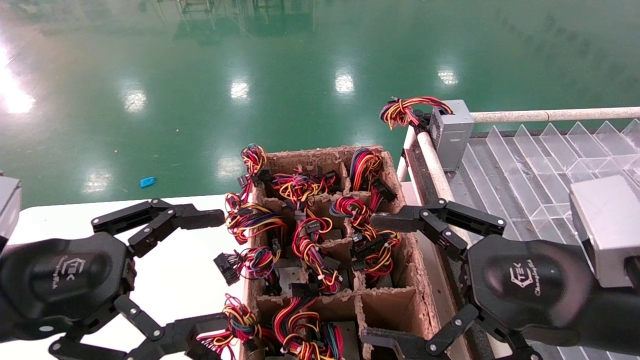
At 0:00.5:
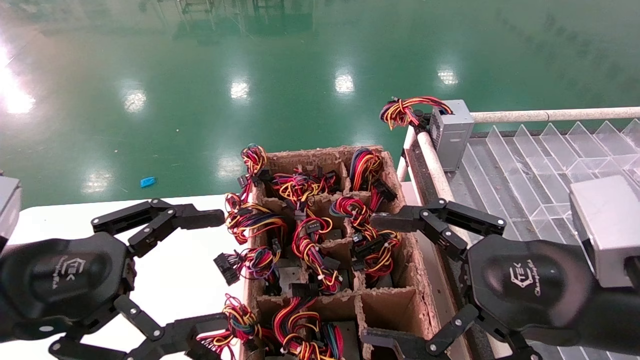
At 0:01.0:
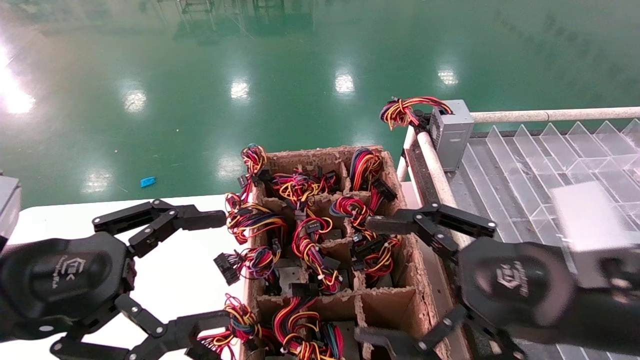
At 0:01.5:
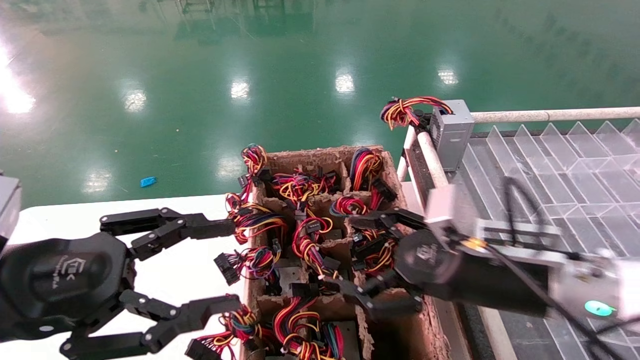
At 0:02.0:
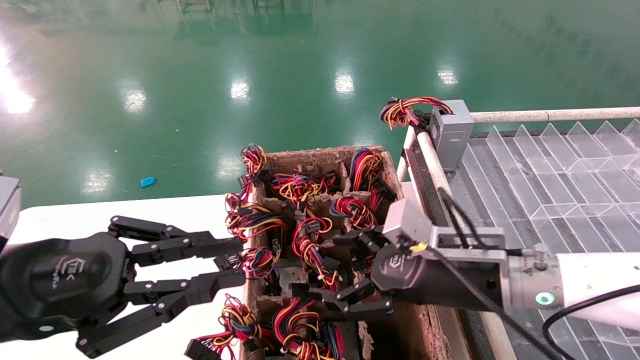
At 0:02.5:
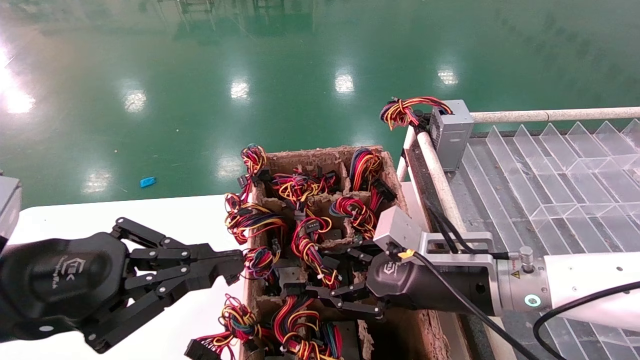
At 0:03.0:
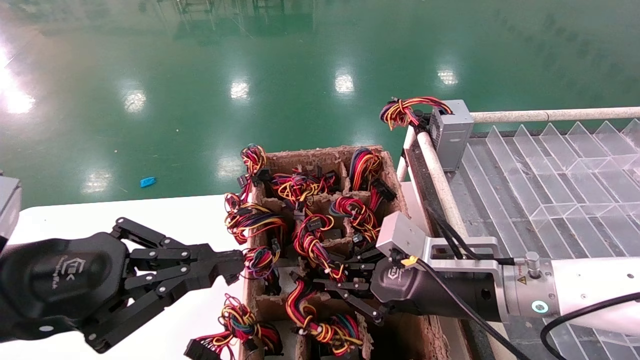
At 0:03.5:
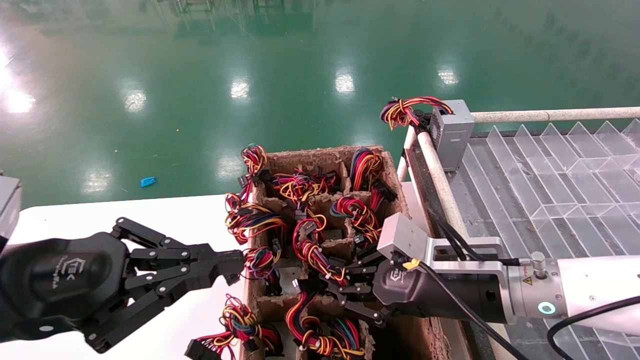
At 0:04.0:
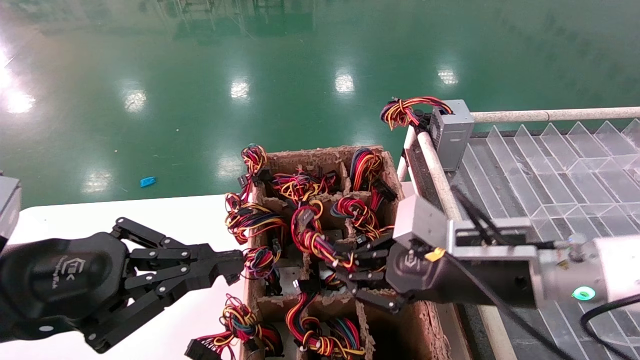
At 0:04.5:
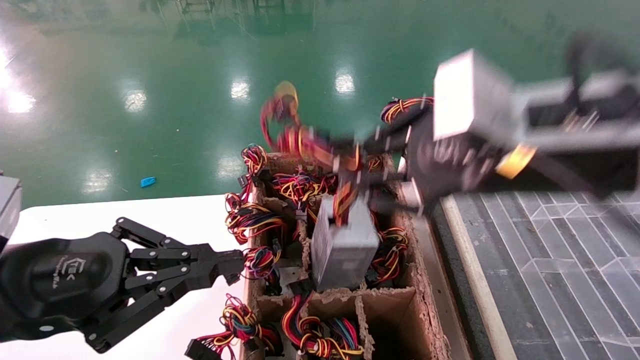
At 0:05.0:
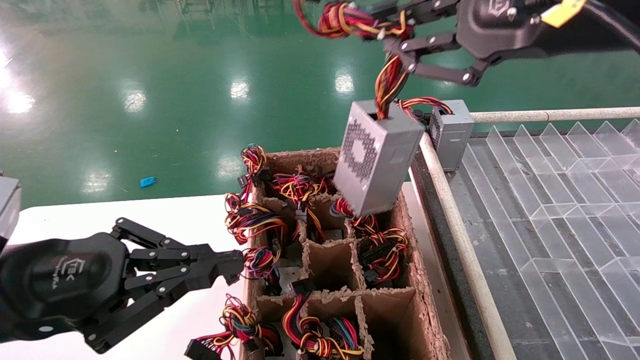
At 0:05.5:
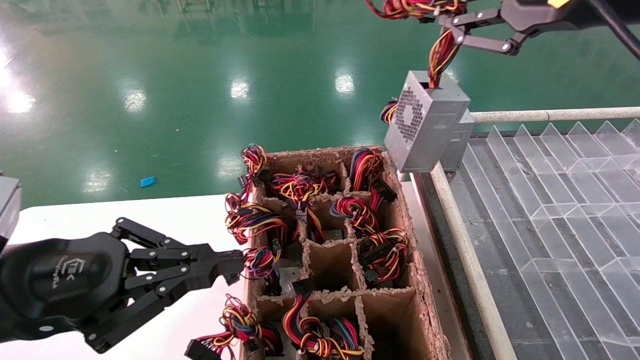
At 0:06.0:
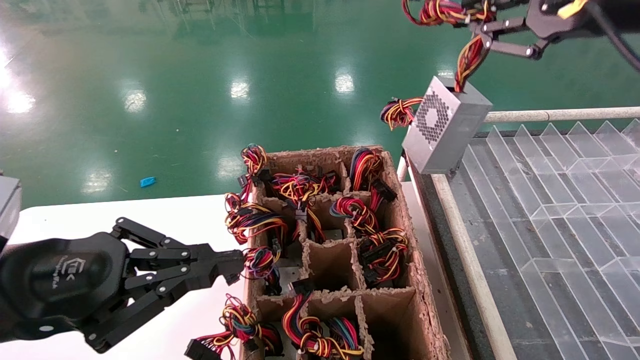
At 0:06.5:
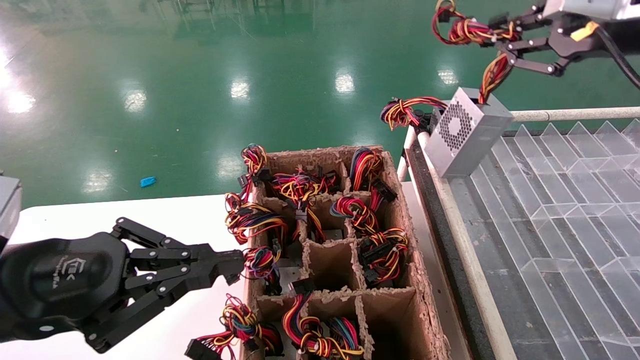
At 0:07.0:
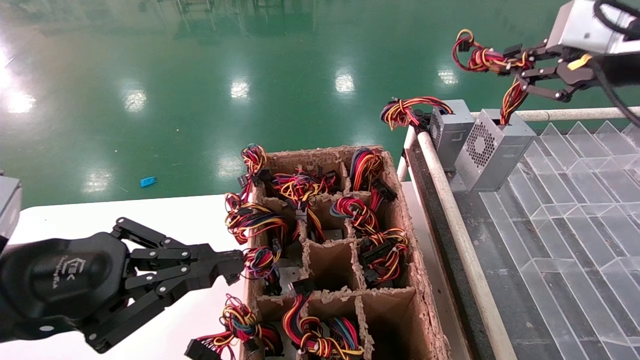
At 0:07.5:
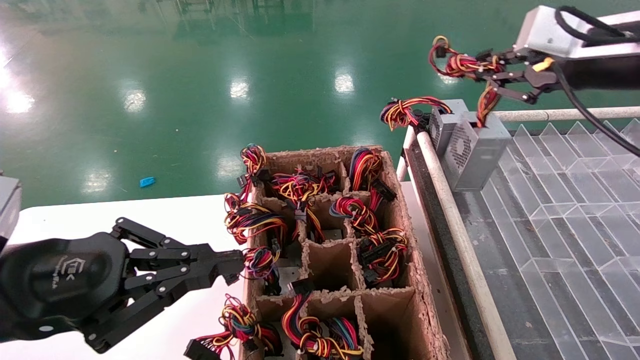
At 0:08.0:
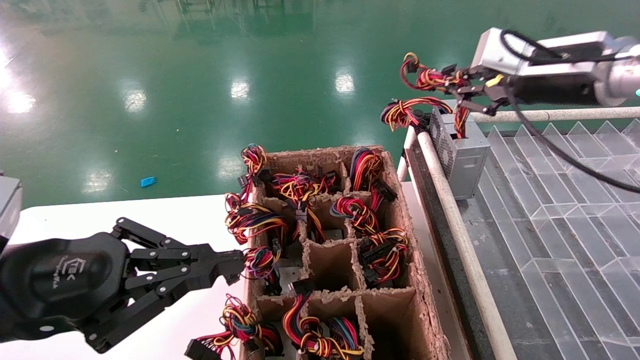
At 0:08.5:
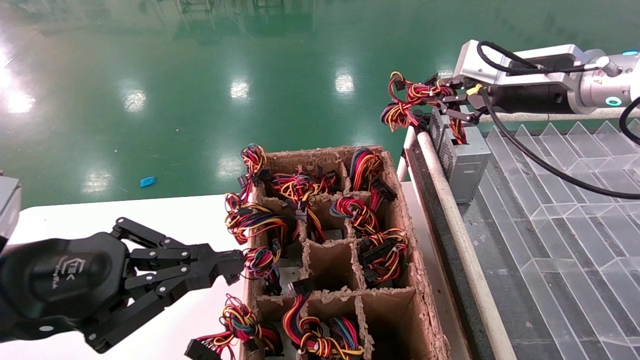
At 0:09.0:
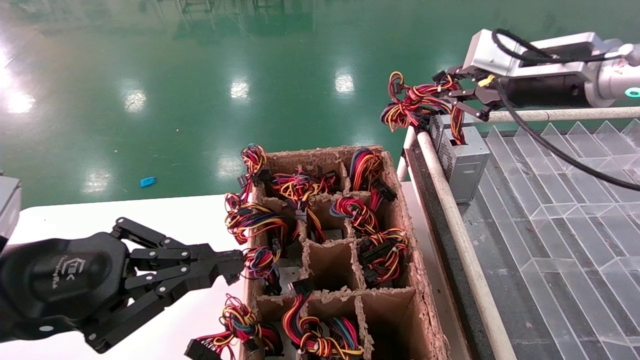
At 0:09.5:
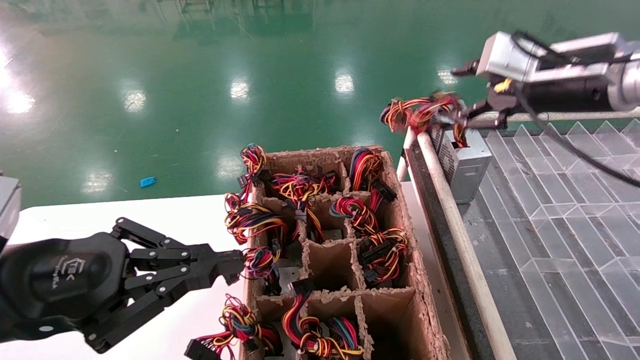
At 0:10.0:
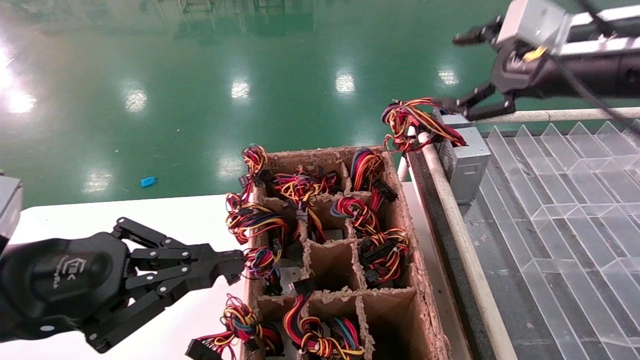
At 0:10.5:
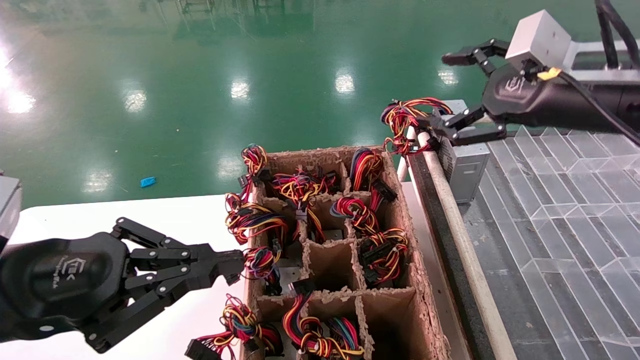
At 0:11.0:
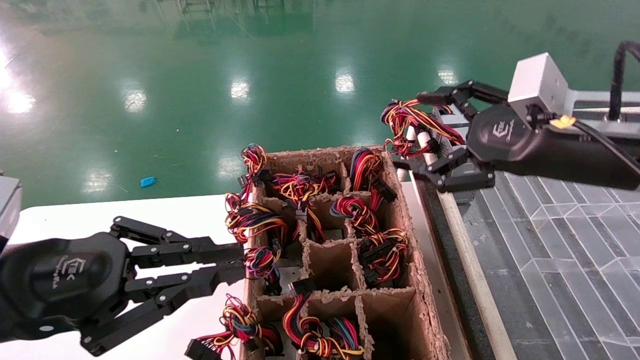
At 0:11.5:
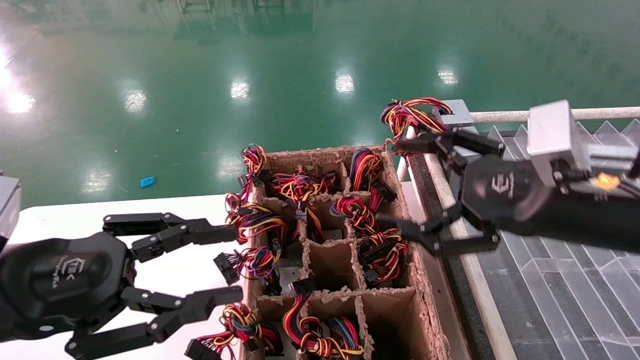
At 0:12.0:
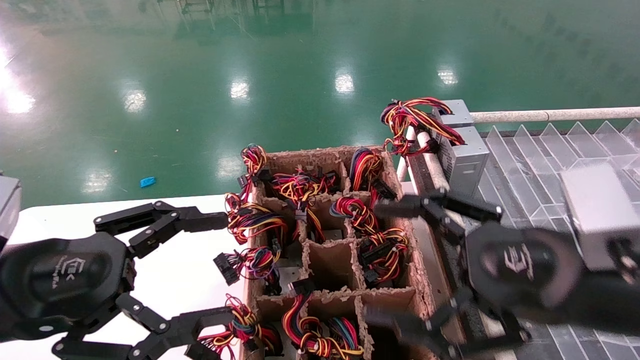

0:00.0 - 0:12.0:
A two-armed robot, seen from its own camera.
Step, 0:01.5 - 0:03.0: Grab the main unit power supply from the containment box.
Step, 0:03.5 - 0:09.5: Place the main unit power supply in the designated area.
0:00.0 - 0:02.0: The left gripper closes up, while the right gripper heads forward, downward and to the left, covering approximately 15 cm.
0:02.0 - 0:04.0: The right gripper shifts by roughly 5 cm, and closes.
0:04.0 - 0:06.0: The right gripper travels upward and to the right by approximately 25 cm.
0:06.0 - 0:08.0: The right gripper heads forward and downward, covering roughly 15 cm.
0:08.0 - 0:10.0: The right gripper opens up.
0:10.0 - 0:12.0: The left gripper opens its fingers, while the right gripper shifts roughly 20 cm downward, backward and to the left.

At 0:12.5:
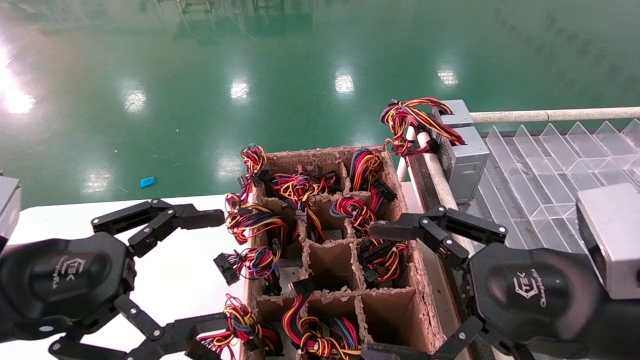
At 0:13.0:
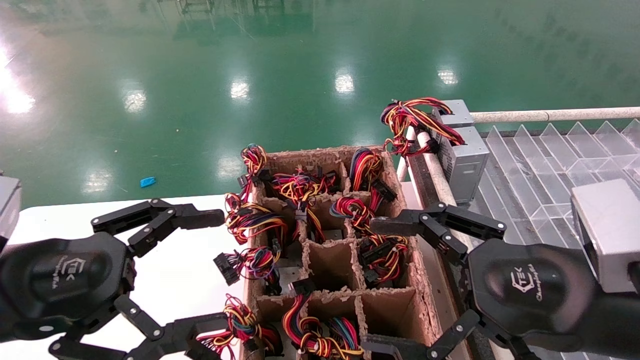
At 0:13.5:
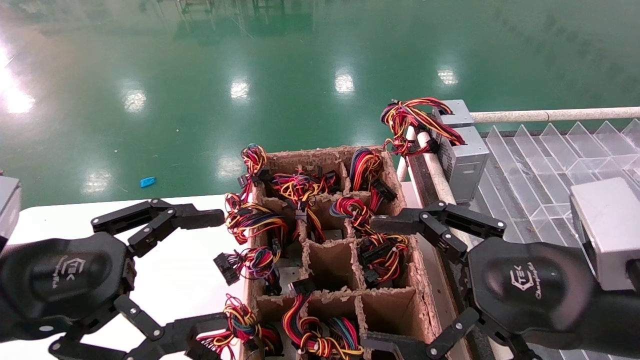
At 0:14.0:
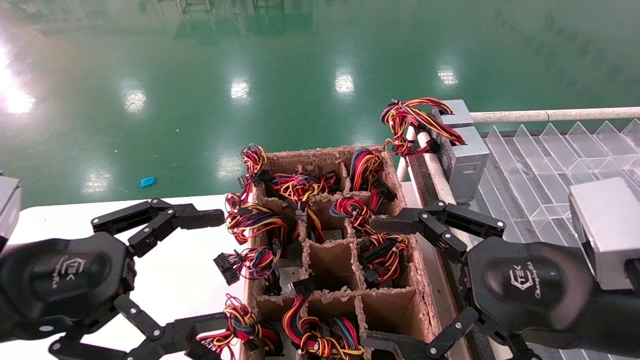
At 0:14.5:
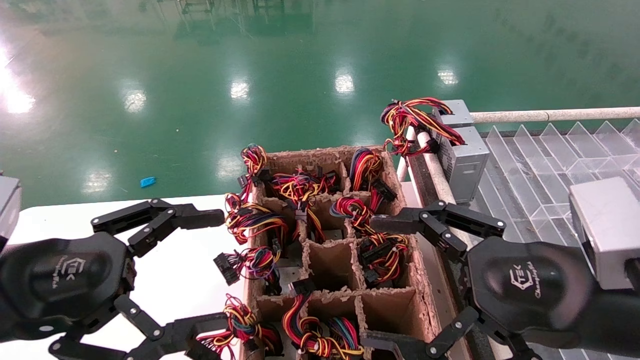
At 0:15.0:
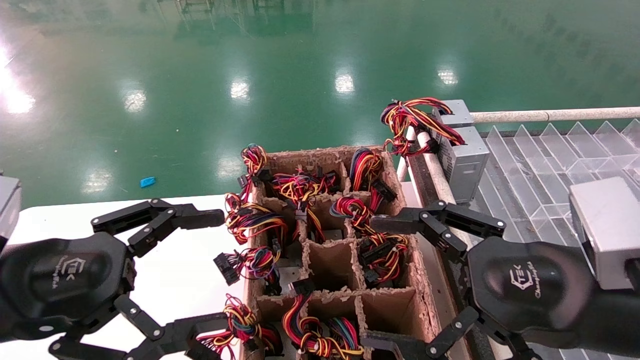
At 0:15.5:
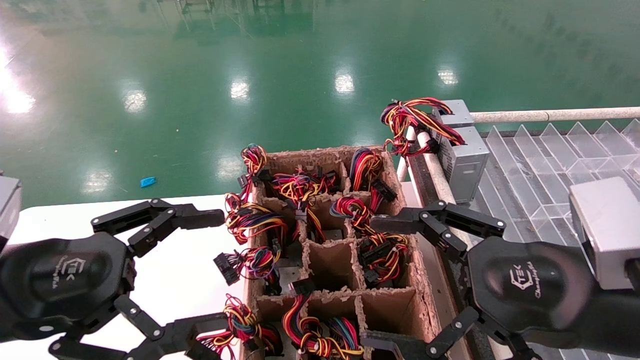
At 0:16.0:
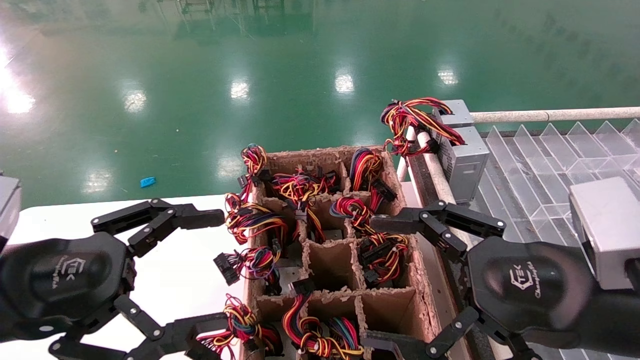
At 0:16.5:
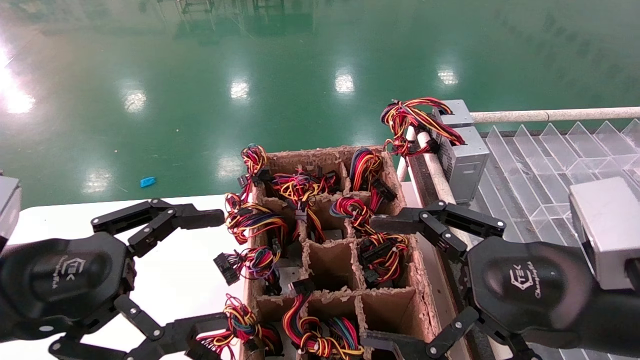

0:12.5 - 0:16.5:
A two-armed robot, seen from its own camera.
0:12.5 - 0:16.5: The two grippers keep their place.
